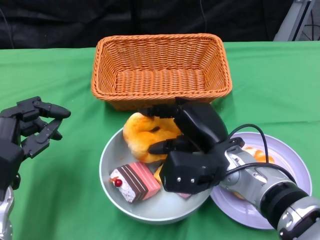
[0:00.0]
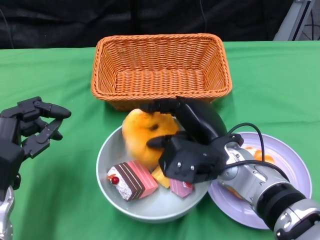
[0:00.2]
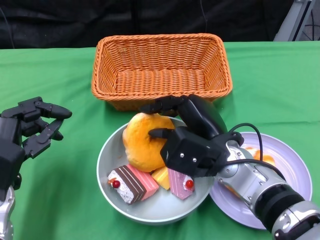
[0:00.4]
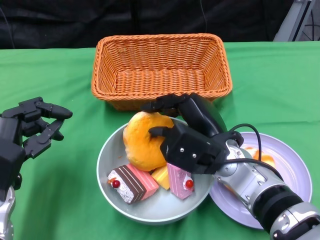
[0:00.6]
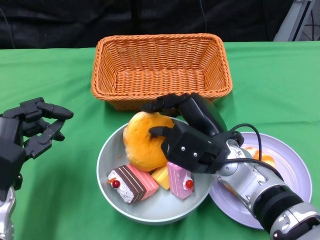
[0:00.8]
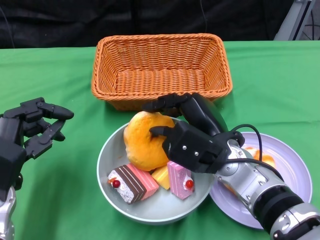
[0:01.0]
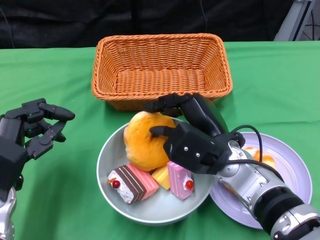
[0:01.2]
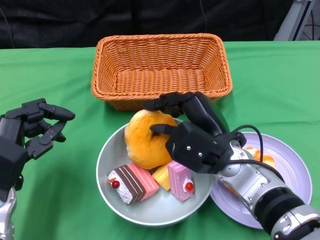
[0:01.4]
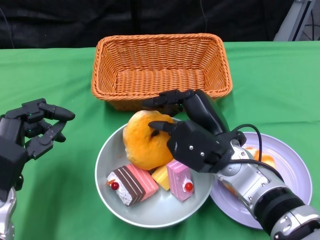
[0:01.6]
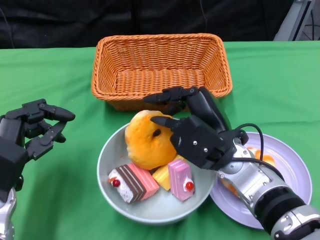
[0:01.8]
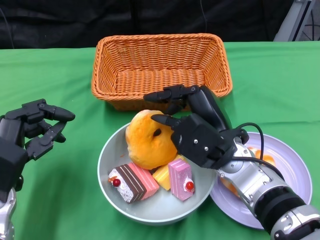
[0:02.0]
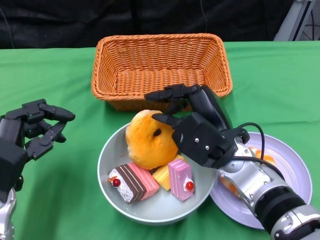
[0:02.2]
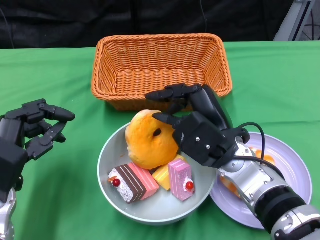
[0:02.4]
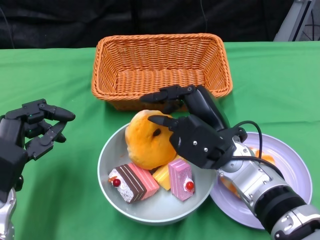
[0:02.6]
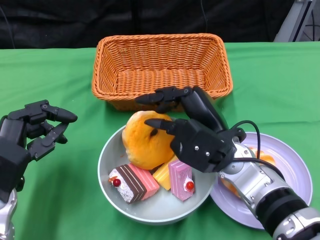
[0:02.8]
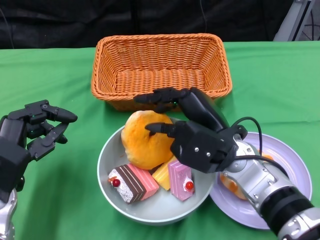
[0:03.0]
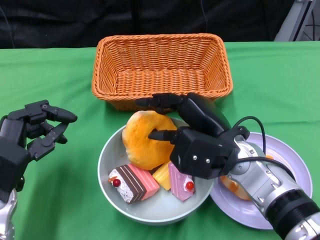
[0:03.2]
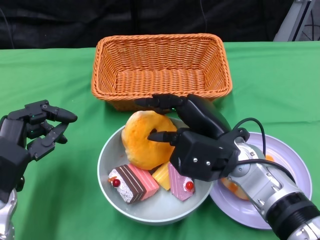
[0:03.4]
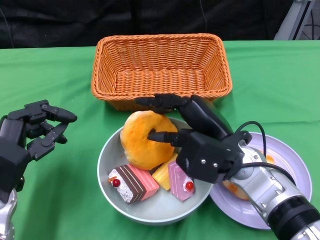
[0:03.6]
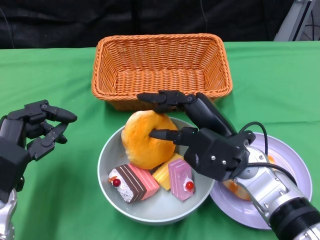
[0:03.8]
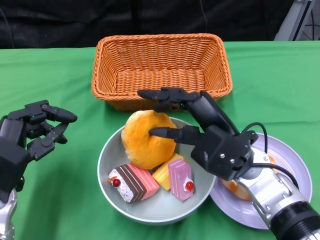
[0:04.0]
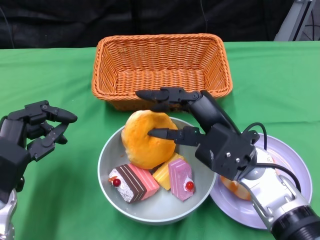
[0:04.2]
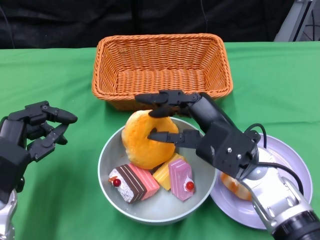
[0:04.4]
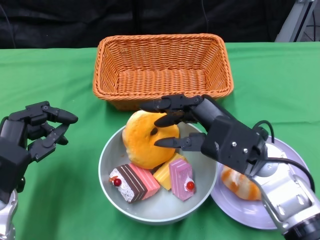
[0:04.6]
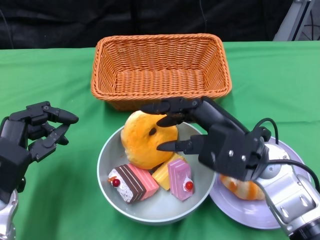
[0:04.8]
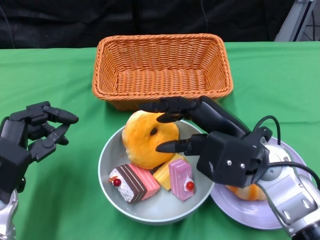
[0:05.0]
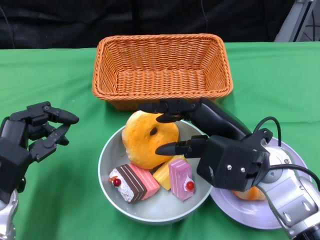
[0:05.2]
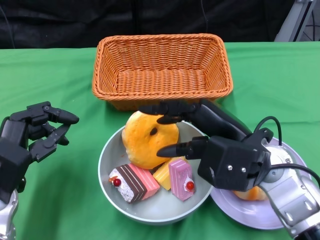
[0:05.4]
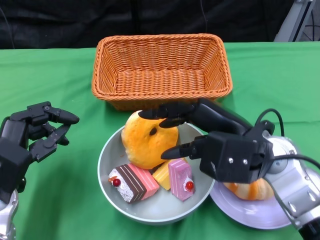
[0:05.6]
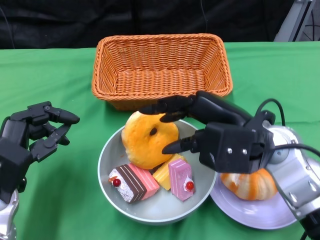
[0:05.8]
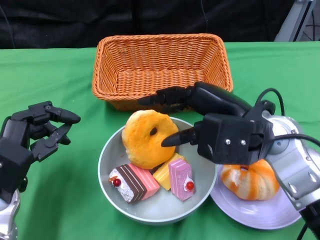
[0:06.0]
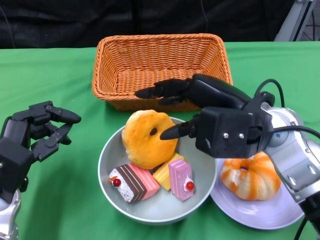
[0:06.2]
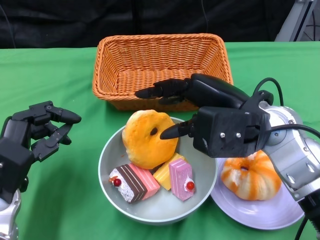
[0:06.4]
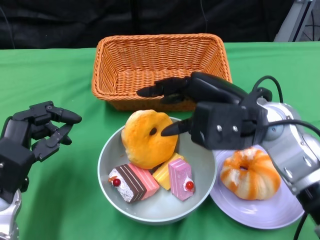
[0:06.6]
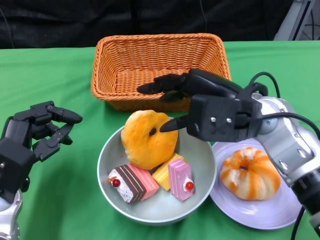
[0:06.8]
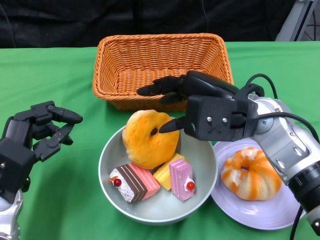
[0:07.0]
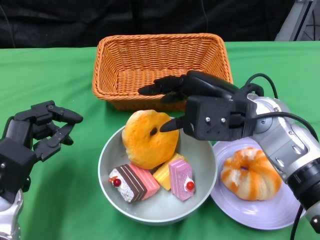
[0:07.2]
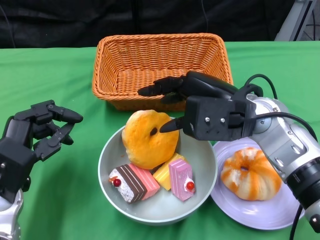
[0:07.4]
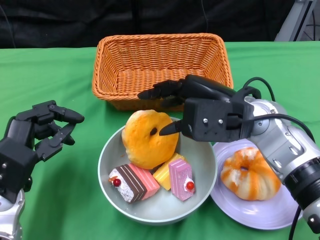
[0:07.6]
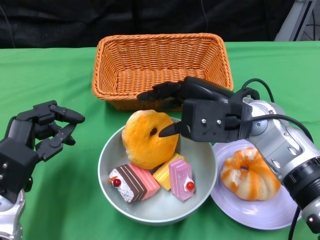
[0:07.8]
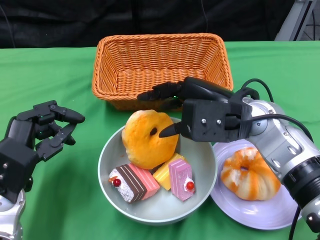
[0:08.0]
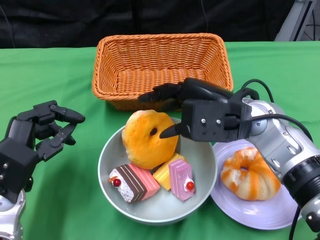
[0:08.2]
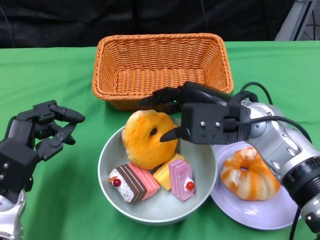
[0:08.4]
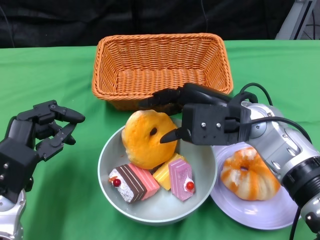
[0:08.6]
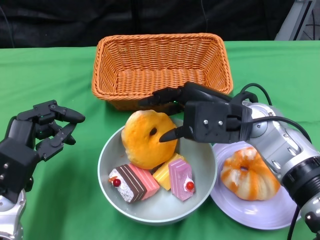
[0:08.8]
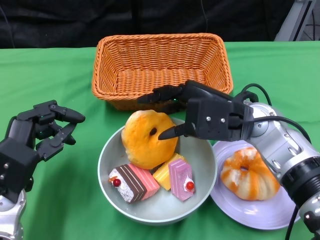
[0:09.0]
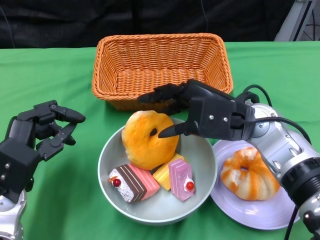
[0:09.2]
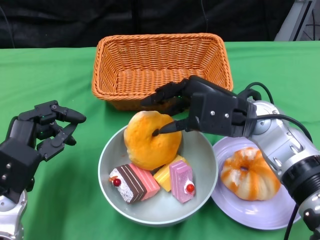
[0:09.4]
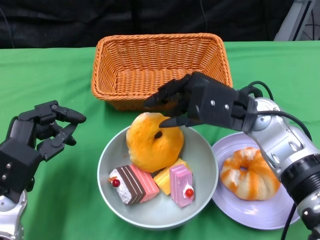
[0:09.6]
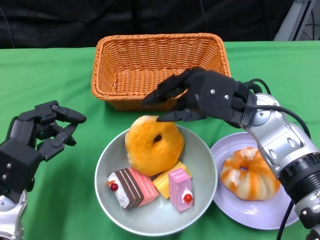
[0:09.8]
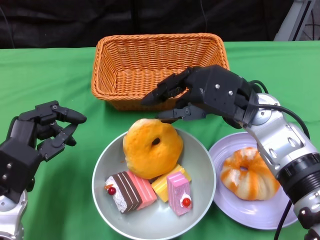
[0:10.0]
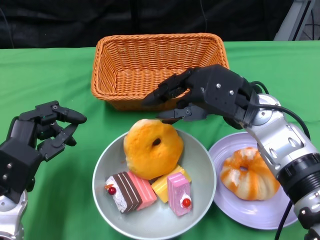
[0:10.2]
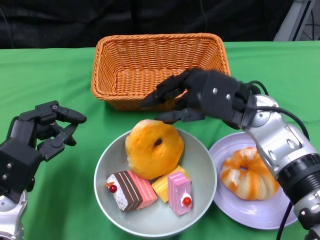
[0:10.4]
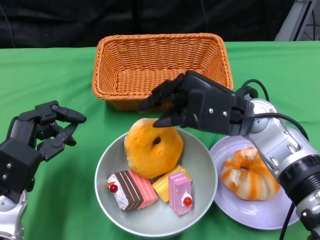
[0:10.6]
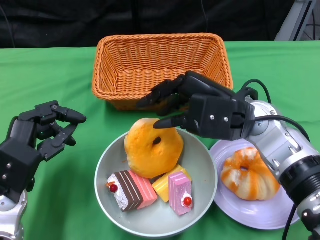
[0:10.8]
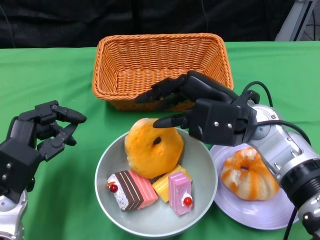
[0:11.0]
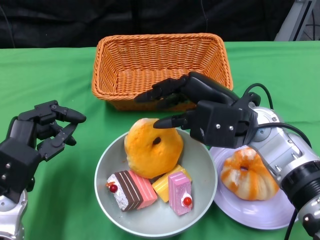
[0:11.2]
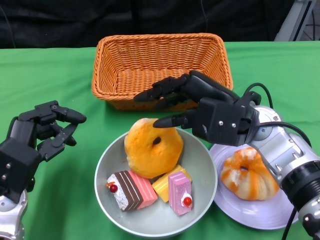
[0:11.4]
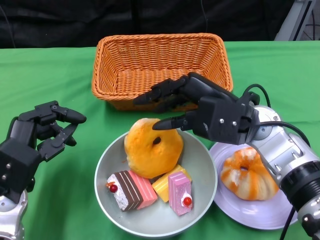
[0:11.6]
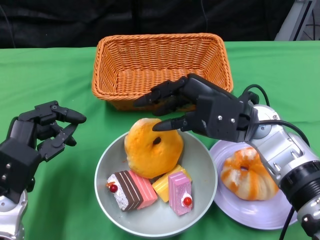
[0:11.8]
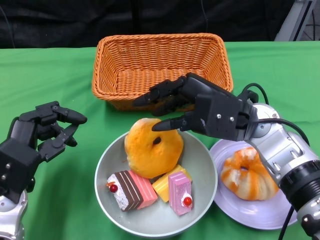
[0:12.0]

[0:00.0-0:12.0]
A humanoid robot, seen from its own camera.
0:01.6 to 0:04.4: The hands move only a little.
0:04.4 to 0:06.0: The right hand goes some 5 cm upward.
0:06.0 to 0:07.6: The hands move only a little.
0:07.6 to 0:09.0: Neither hand changes place.
0:10.4 to 0:12.0: There are only small adjustments of the hands.

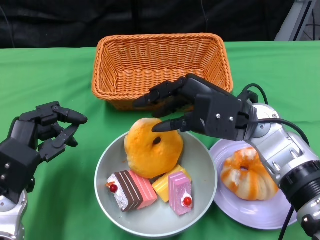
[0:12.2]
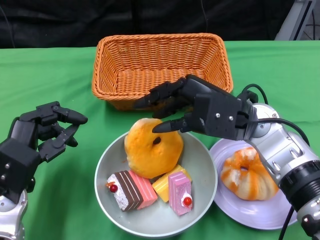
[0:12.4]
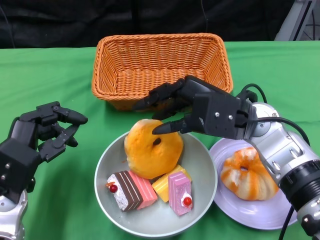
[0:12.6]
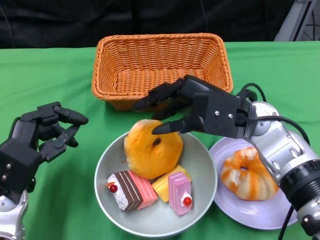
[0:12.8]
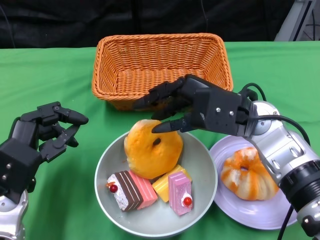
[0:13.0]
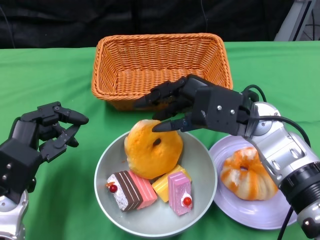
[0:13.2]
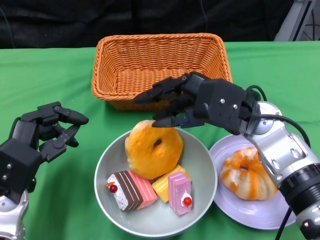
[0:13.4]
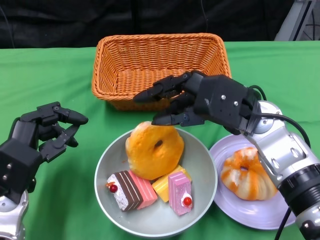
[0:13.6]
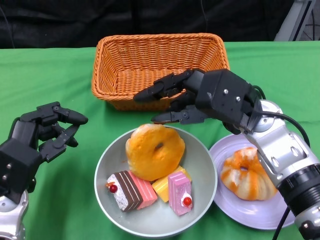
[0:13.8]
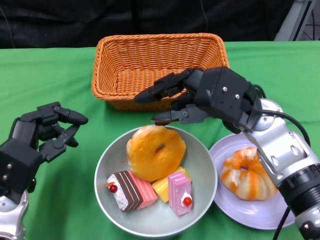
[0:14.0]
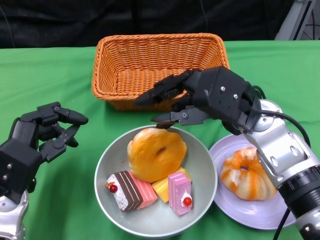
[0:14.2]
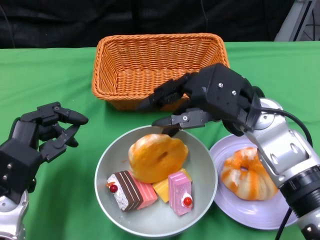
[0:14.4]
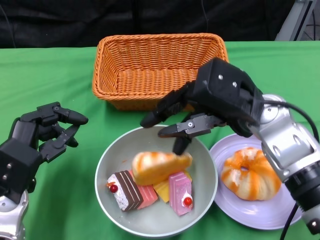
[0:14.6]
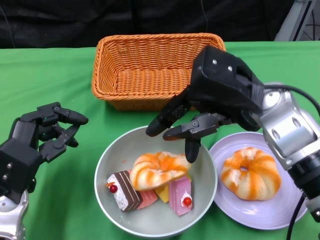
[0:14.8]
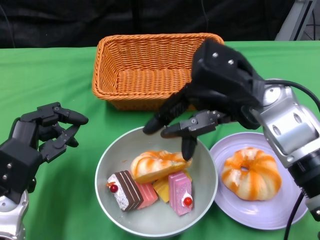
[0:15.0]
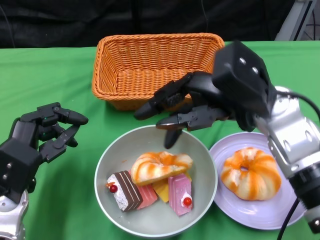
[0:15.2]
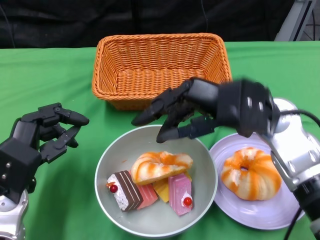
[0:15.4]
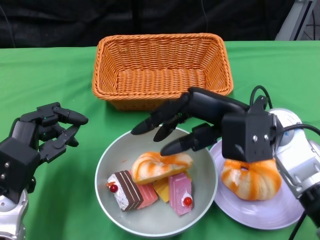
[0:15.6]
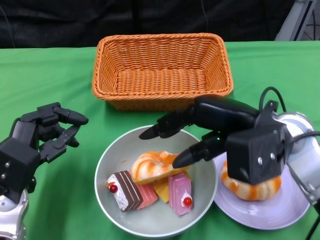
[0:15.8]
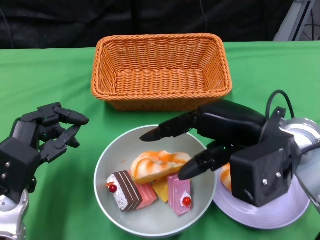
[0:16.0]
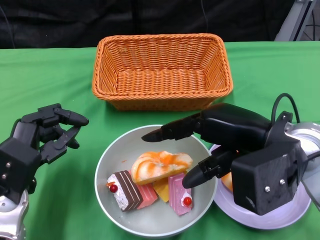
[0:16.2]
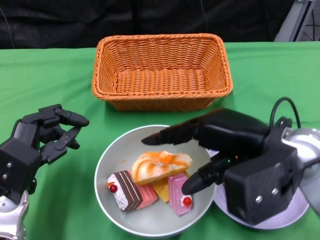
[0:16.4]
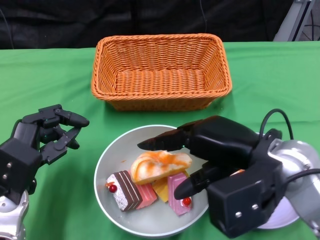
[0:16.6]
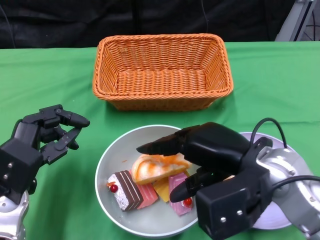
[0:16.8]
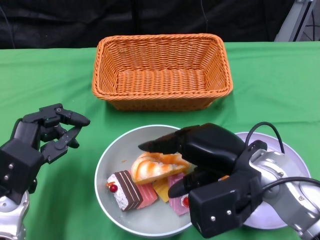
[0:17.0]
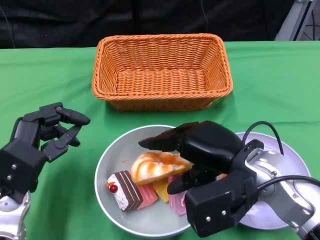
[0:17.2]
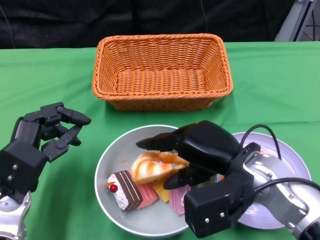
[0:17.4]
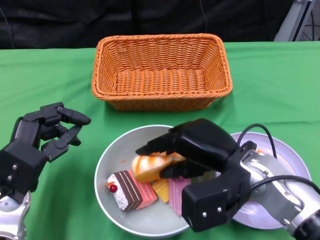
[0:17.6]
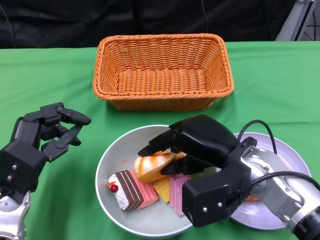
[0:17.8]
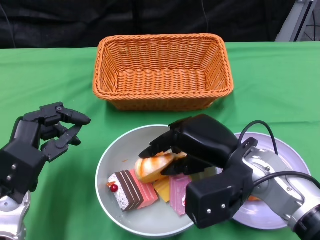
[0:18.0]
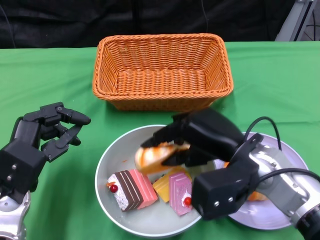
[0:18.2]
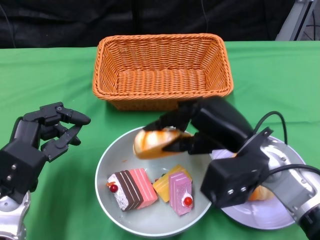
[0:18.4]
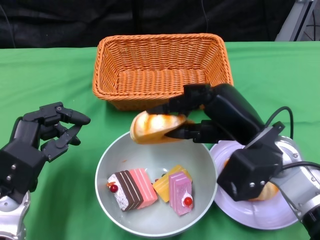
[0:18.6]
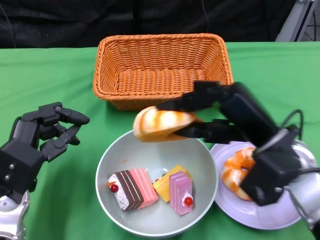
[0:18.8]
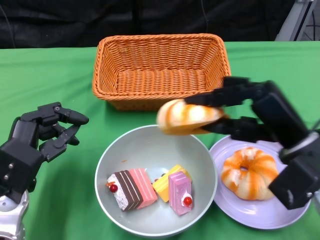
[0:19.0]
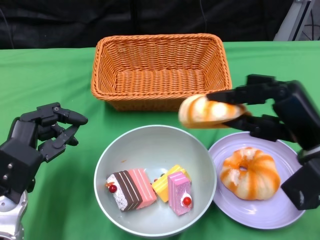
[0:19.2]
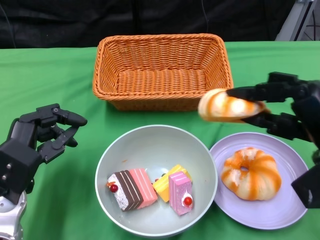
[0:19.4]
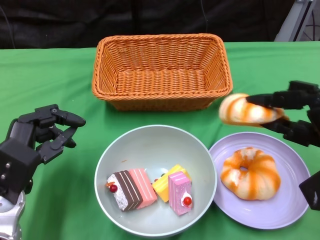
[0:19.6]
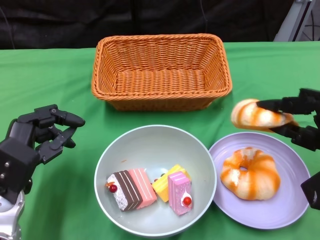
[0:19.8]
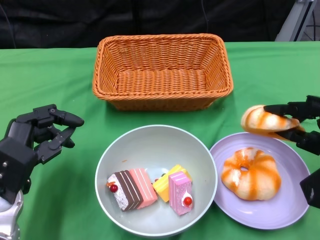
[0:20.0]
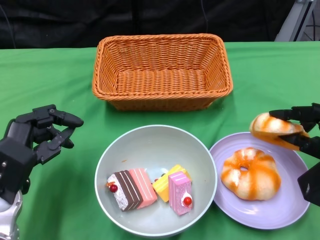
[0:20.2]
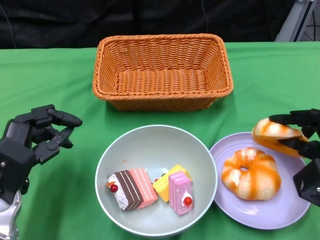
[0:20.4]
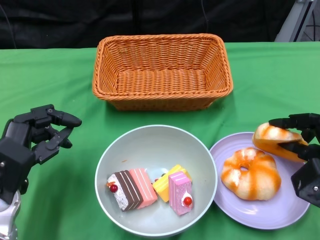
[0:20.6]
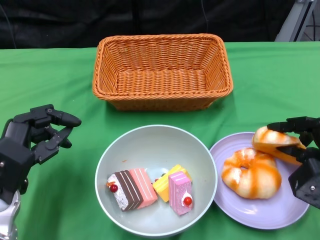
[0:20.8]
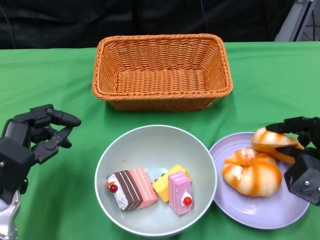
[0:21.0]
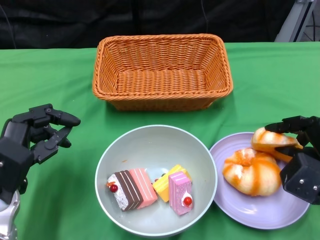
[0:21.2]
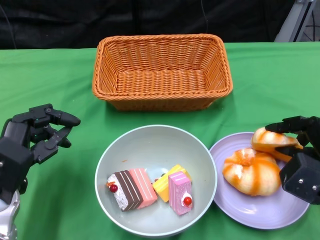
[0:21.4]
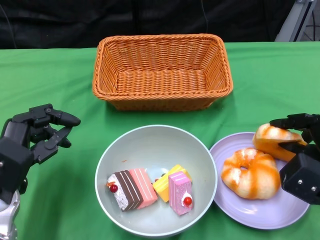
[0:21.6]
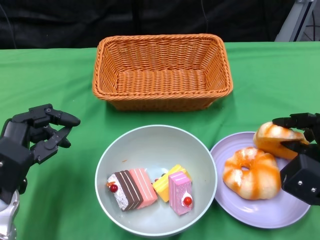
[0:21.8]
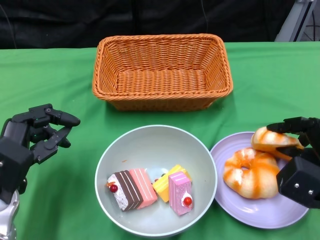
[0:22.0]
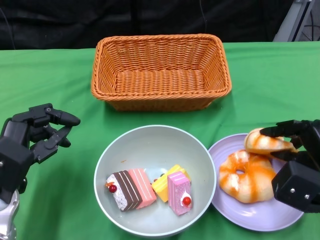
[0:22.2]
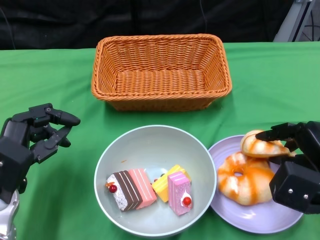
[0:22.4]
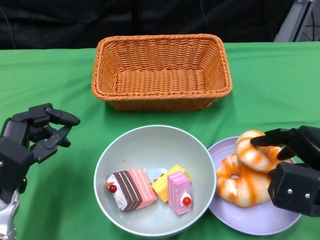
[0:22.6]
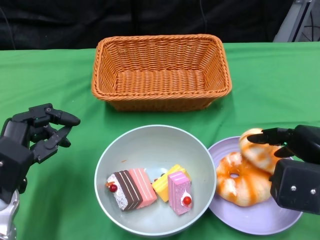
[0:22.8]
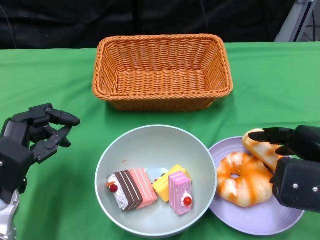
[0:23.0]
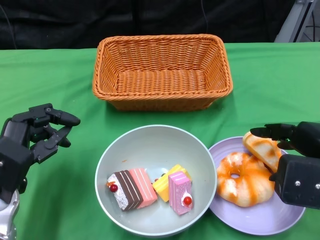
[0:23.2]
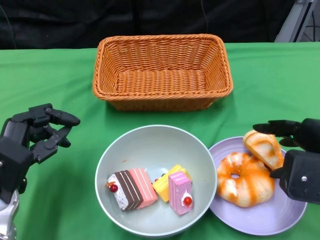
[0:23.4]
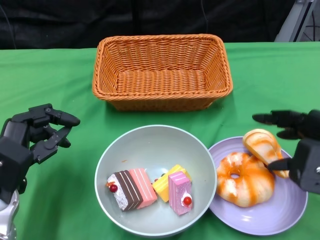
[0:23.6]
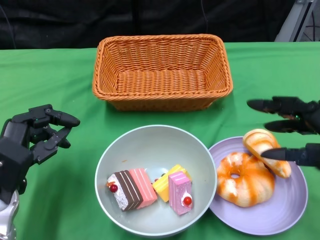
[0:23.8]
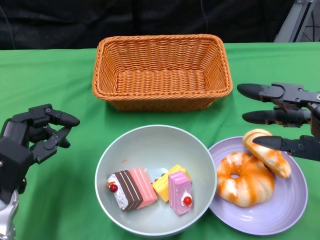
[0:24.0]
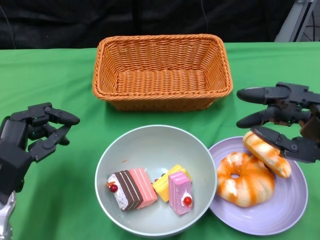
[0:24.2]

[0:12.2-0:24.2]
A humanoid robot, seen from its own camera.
Step, 0:12.2 to 0:23.6: Pick up the bread with the right gripper and place it on the plate.
0:12.2 to 0:13.8: The hands stay close to where they were, moving slightly.
0:15.2 to 0:16.6: The right hand shifts approximately 5 cm backward.
0:16.6 to 0:18.2: The right hand moves downward, about 5 cm.
0:18.2 to 0:19.8: The right hand goes some 15 cm to the right.
0:21.2 to 0:22.6: The right hand ends up some 5 cm from where it was.
